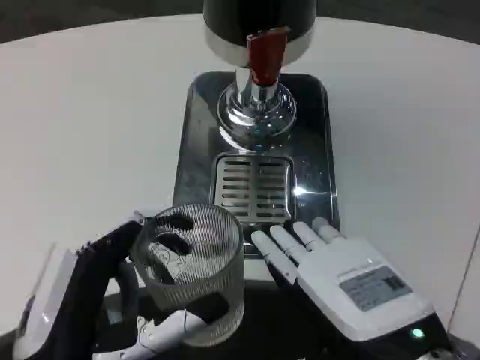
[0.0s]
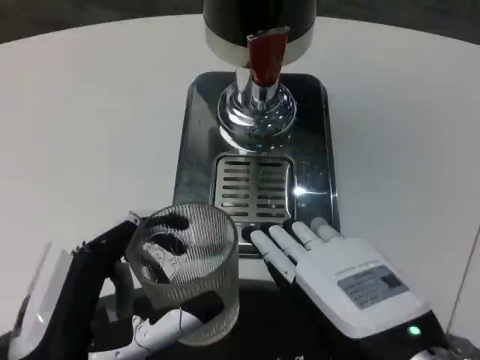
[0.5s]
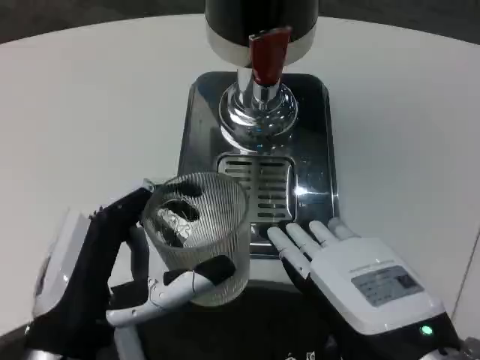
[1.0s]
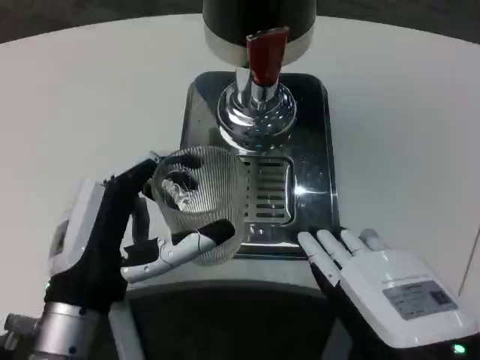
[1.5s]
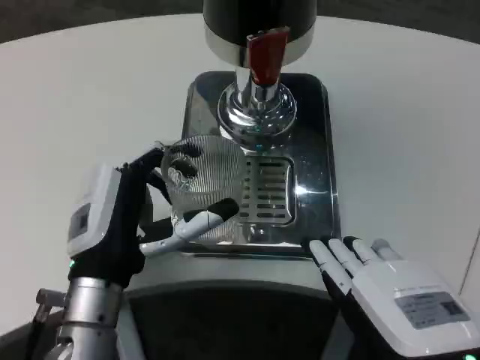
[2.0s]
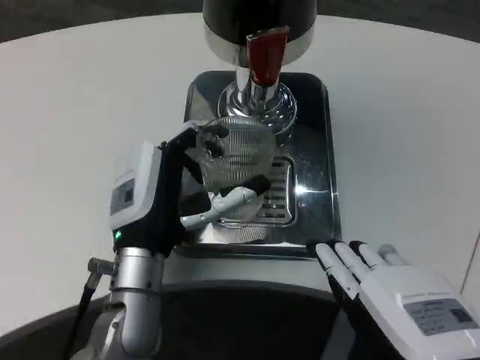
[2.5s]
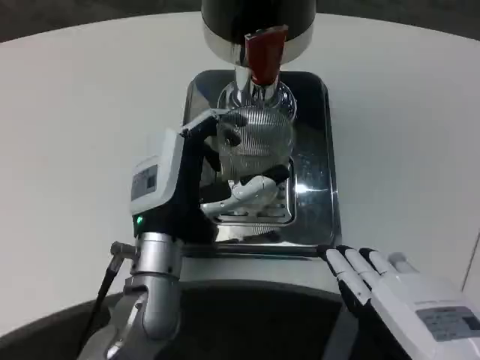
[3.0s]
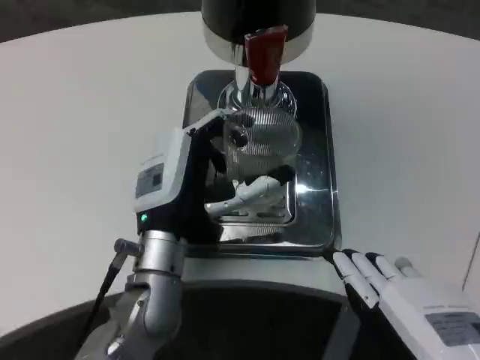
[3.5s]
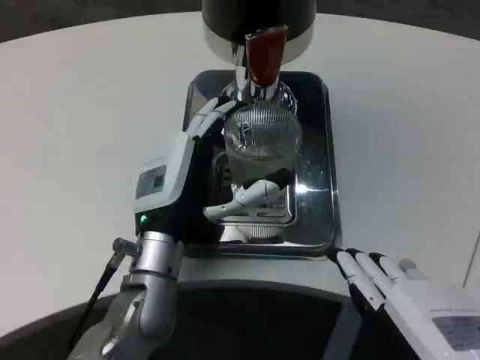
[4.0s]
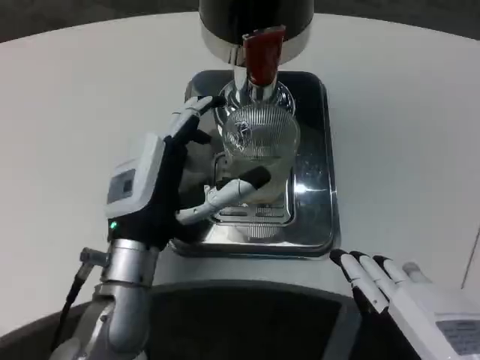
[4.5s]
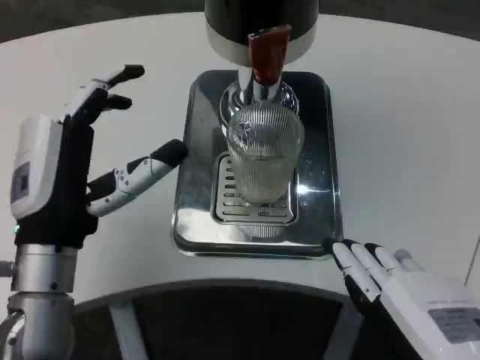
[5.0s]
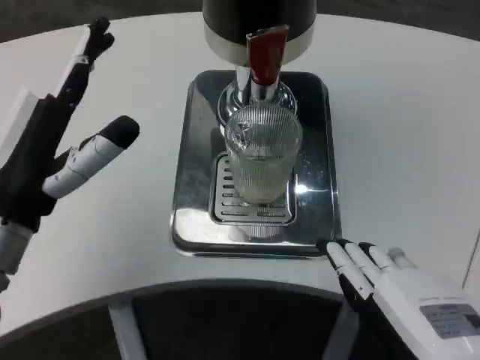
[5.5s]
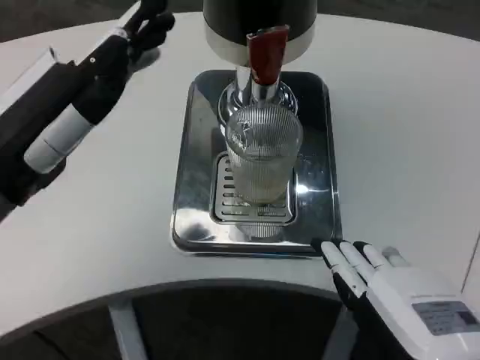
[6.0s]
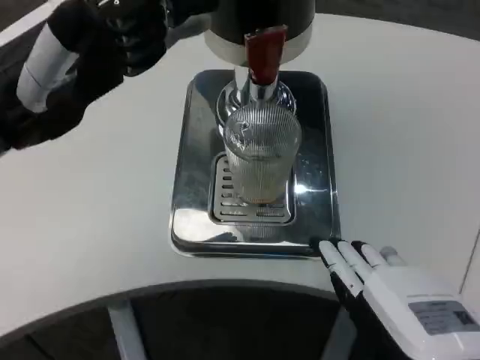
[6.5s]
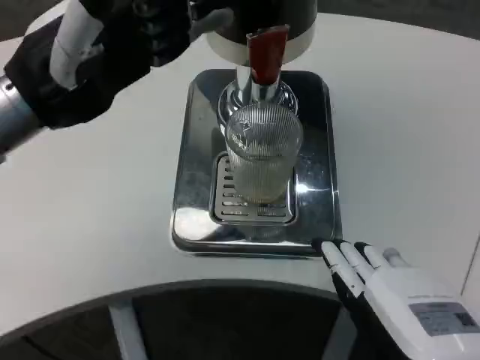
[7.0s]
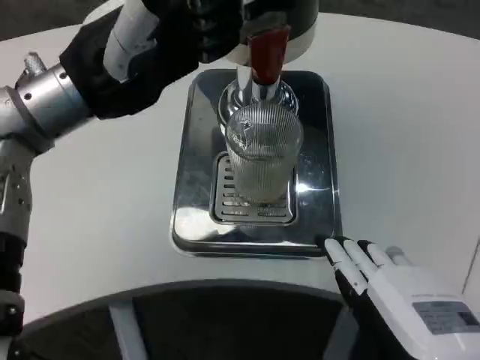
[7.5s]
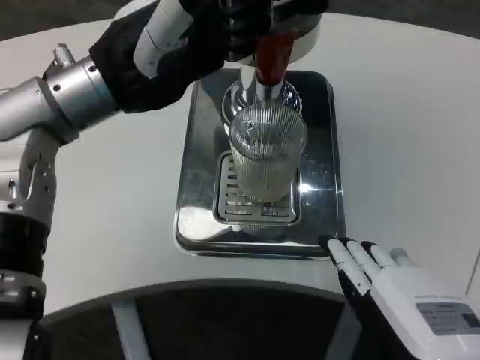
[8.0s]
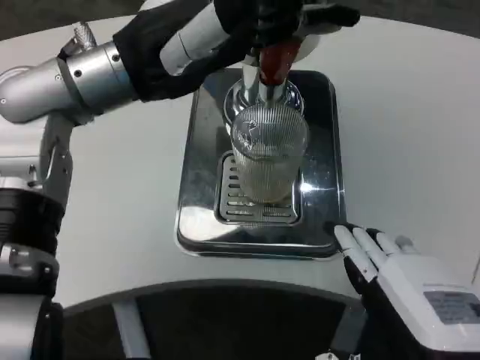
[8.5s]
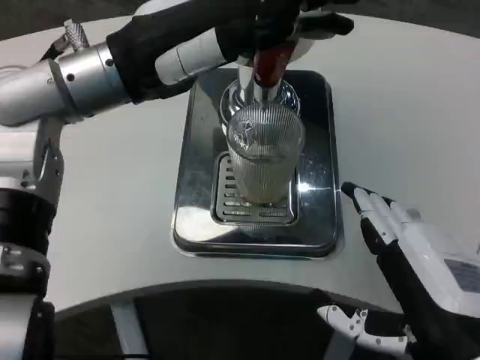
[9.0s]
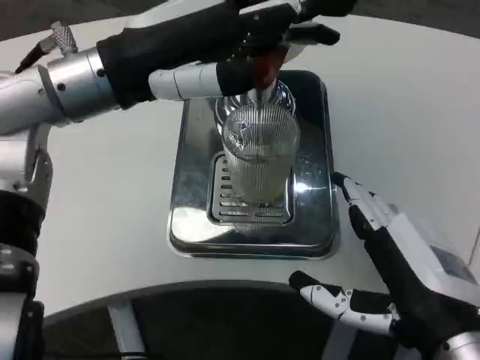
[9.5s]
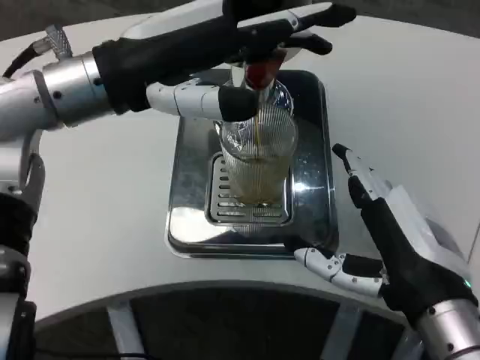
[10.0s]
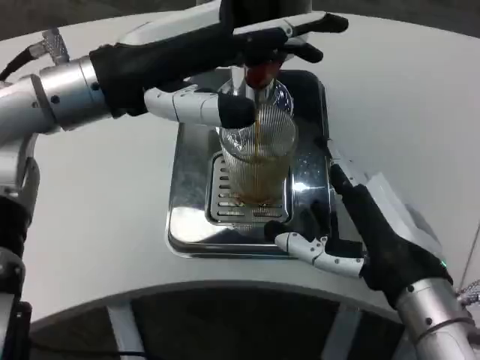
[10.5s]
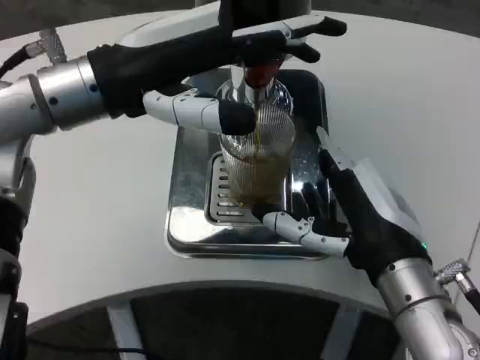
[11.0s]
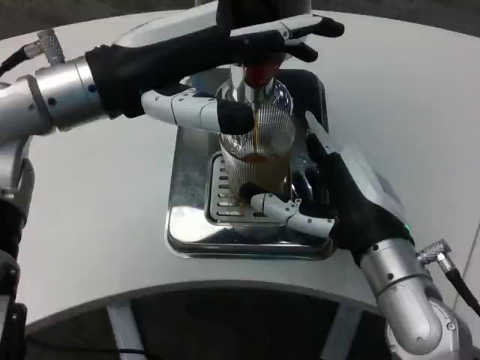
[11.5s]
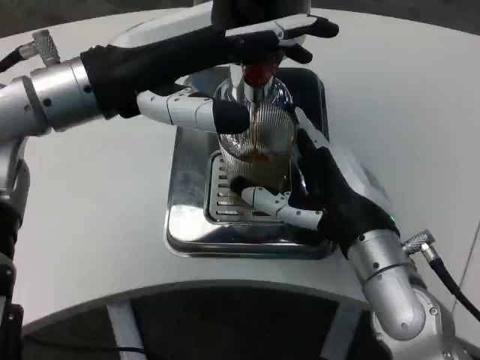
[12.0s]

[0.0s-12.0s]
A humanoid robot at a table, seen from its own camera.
Task of the whole recording: Grasp the cup under the faucet to collect the drink, then remove the cup.
0.0s to 2.0s: The left hand is displaced forward by approximately 10 cm.
2.0s to 4.0s: The left hand shifts about 5 cm forward.
4.0s to 6.0s: The left hand heads to the left, upward and backward, covering some 20 cm.
6.0s to 8.0s: The left hand is displaced forward, to the right and upward by some 10 cm.
8.0s to 10.0s: The right hand moves forward, approximately 10 cm.
10.0s to 12.0s: The right hand moves forward, about 5 cm.

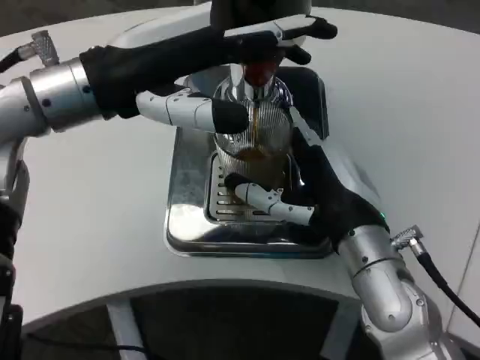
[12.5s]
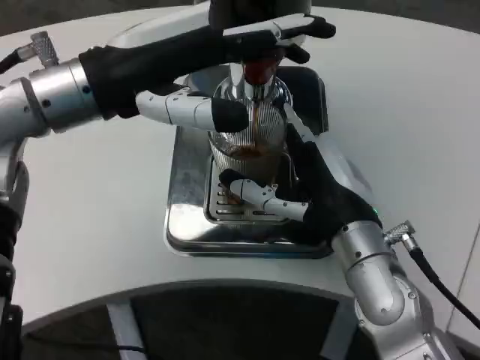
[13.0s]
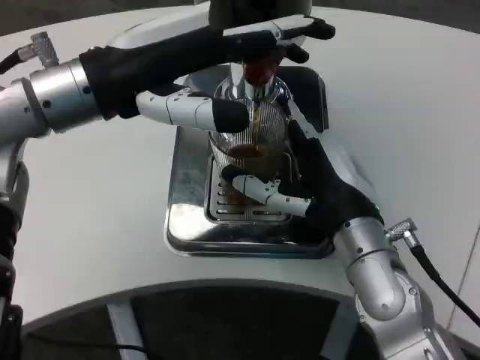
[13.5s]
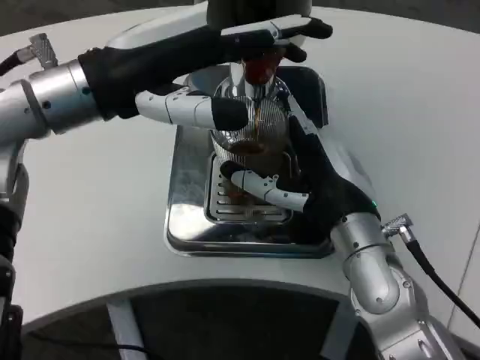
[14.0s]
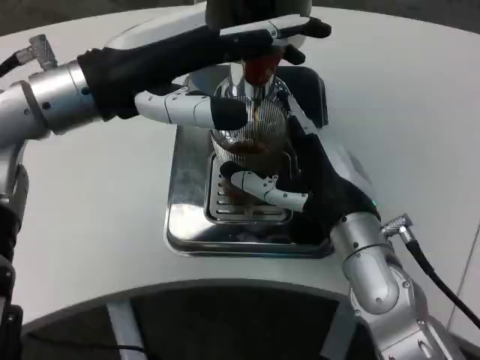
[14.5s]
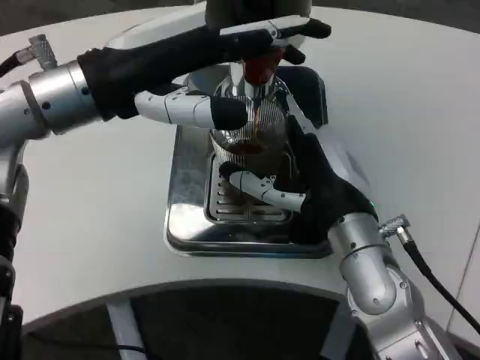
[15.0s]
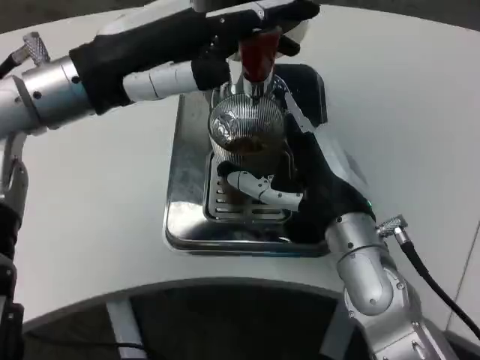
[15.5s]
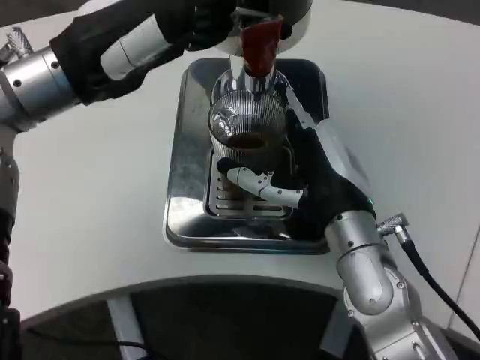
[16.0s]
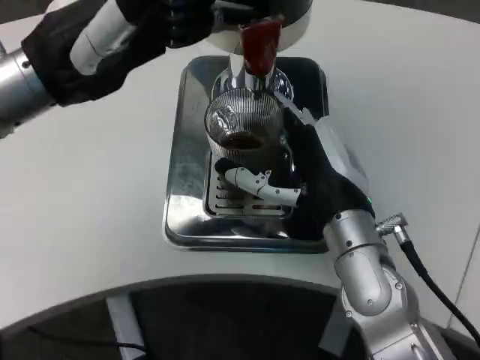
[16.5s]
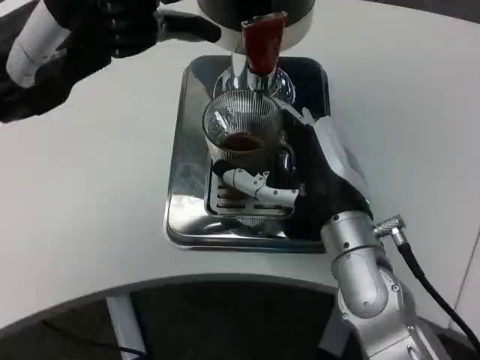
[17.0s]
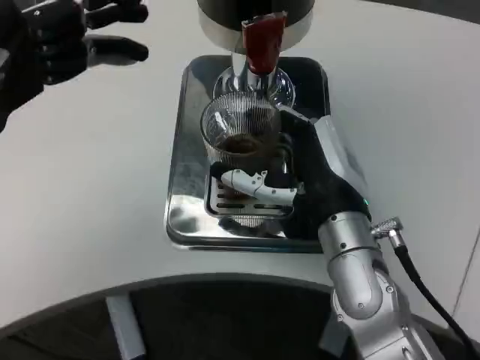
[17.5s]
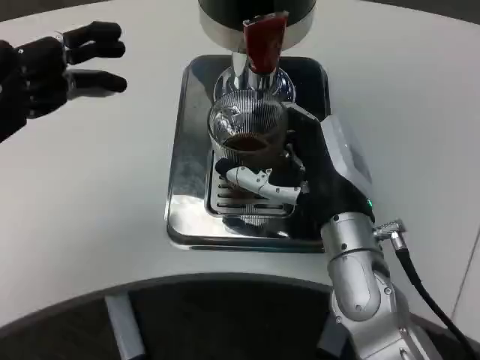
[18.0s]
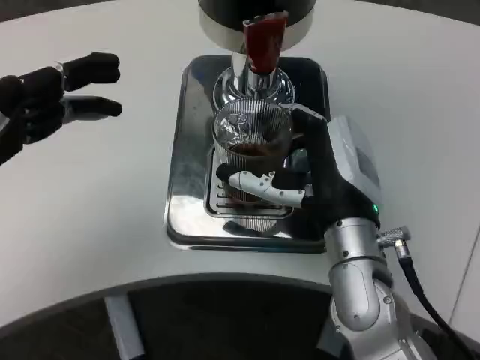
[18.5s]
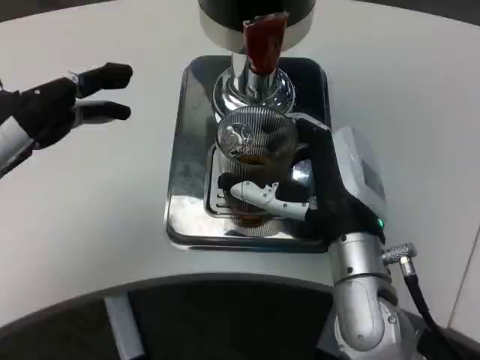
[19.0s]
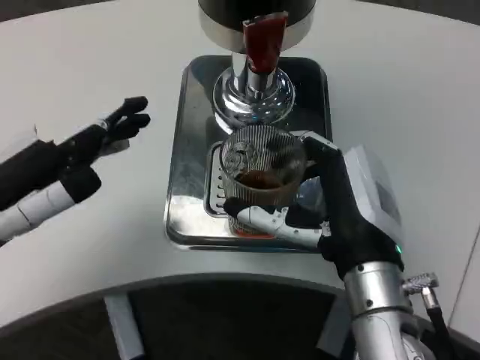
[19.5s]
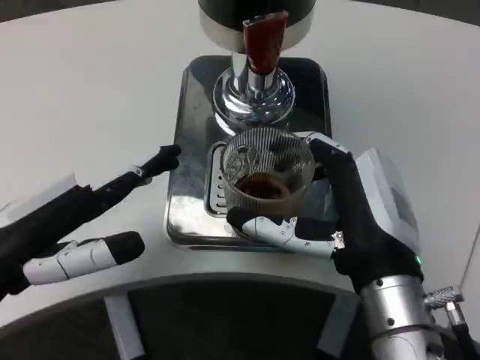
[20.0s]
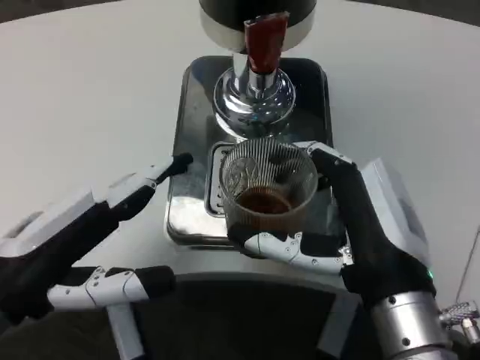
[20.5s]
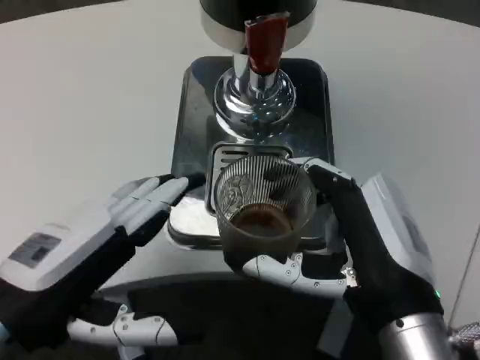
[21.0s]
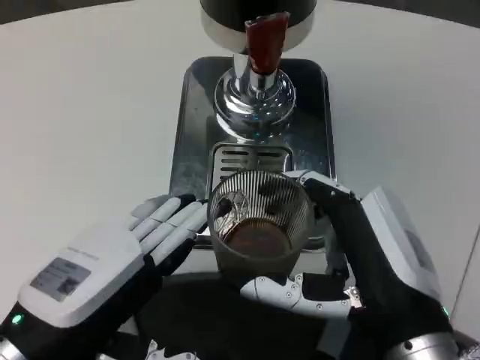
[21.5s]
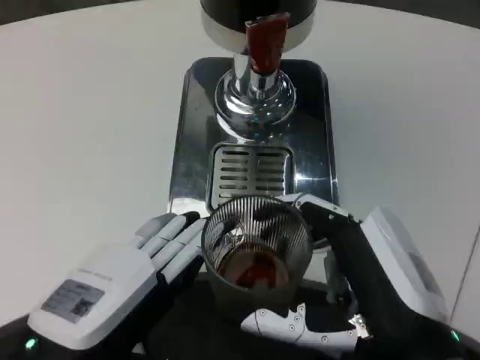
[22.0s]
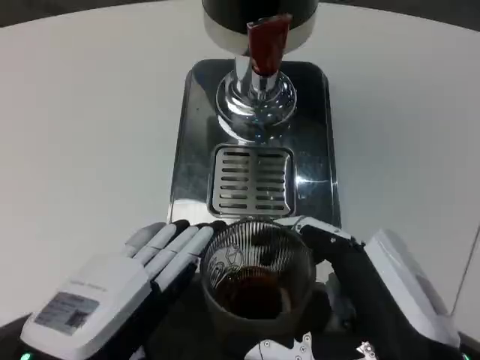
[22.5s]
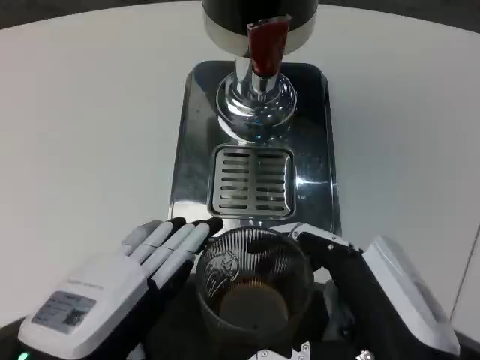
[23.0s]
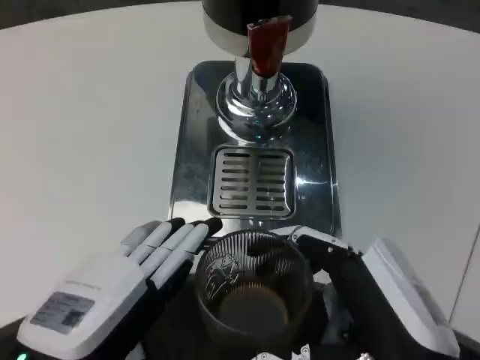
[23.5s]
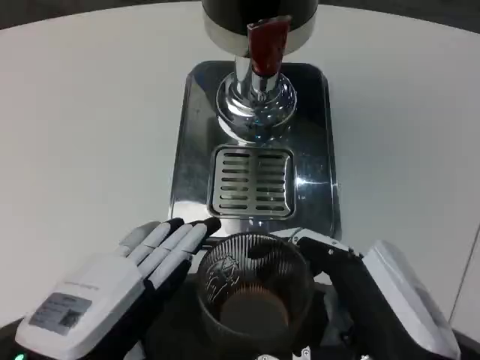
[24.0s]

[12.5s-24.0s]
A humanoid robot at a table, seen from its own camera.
Task of the whole recording: Grasp the cup under the faucet to collect the drink, then remove the cup.
12.5s to 14.5s: There are only small adjustments of the hands.
16.5s to 18.5s: The left hand heads to the left, backward and downward, covering approximately 15 cm.
18.5s to 20.0s: The left hand shifts roughly 5 cm downward; the right hand goes some 5 cm backward.
20.0s to 22.0s: The right hand goes approximately 5 cm backward. The left hand travels to the right and backward by about 10 cm.

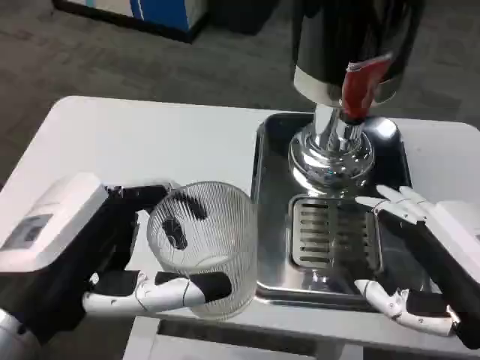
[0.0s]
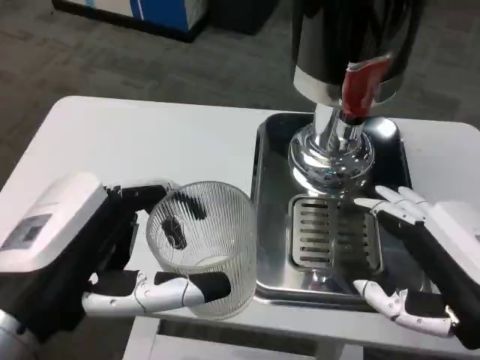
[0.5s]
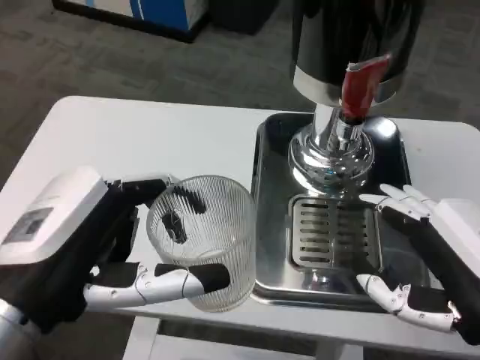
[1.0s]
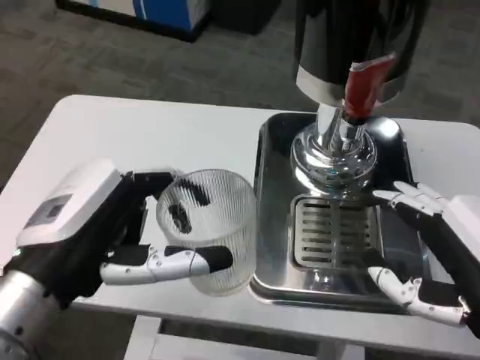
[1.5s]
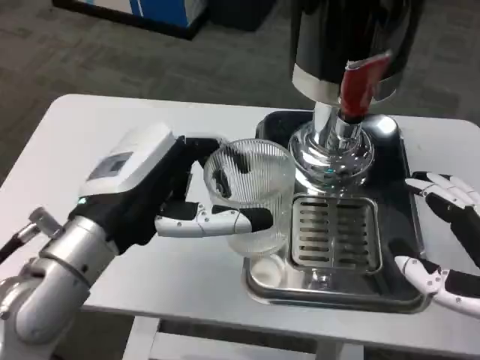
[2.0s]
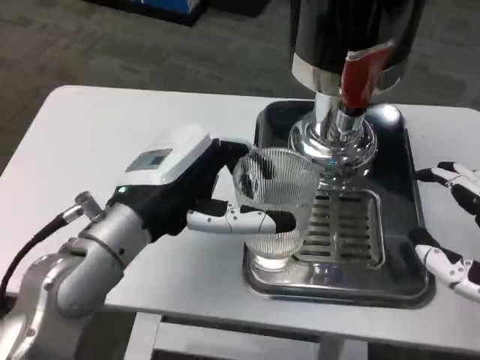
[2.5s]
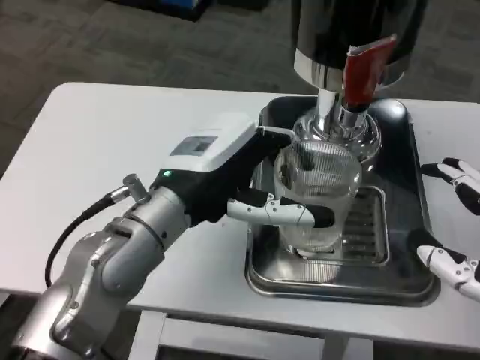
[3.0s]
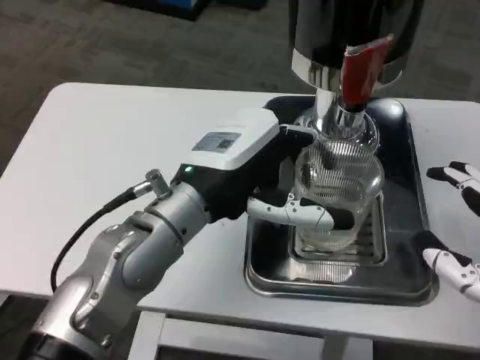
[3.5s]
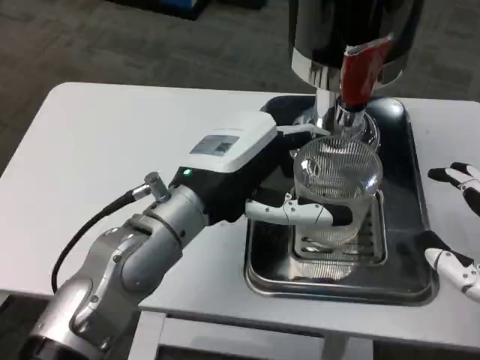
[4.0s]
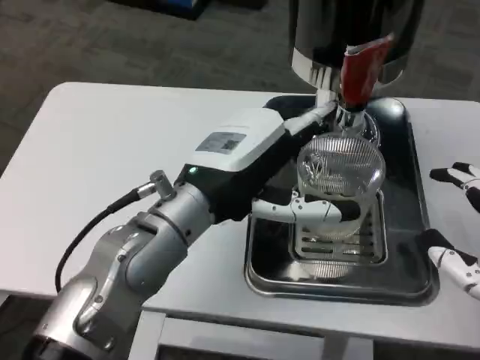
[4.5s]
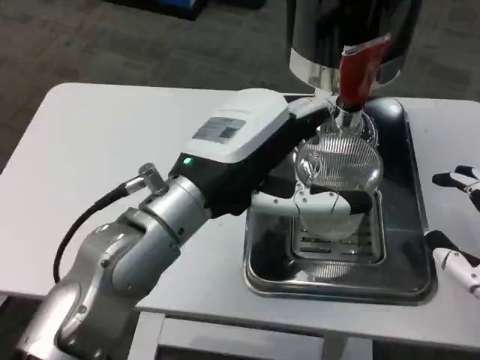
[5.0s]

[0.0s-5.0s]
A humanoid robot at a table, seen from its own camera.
Task of the whole recording: Grasp the cup under the faucet to collect the drink, then remove the cup.
0.0s to 2.5s: The left hand travels forward by approximately 10 cm.
2.5s to 5.0s: The left hand moves roughly 5 cm.
